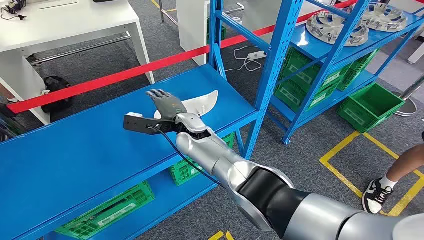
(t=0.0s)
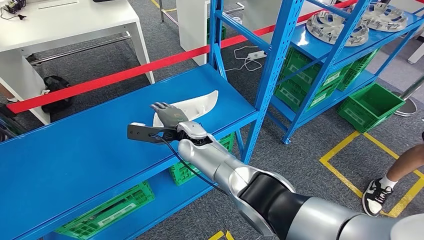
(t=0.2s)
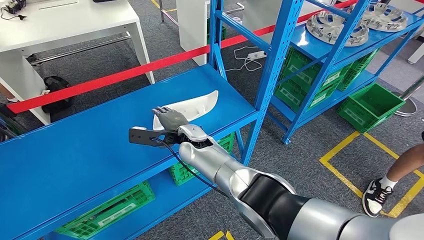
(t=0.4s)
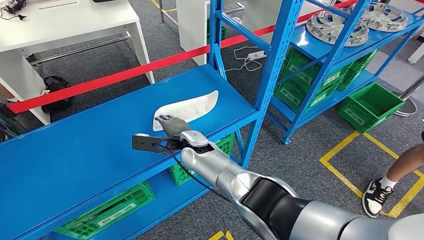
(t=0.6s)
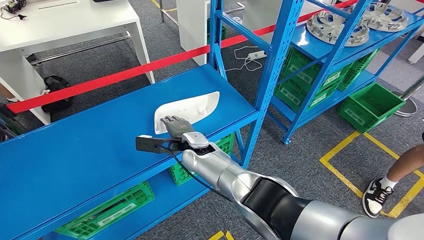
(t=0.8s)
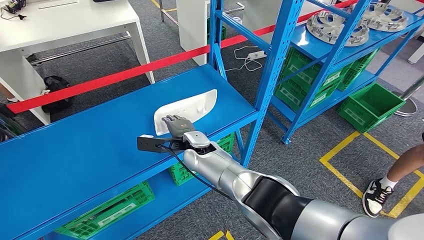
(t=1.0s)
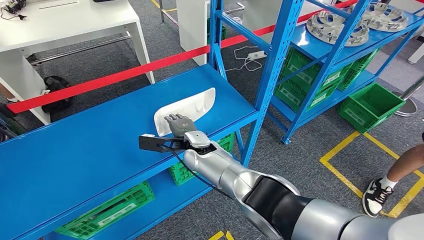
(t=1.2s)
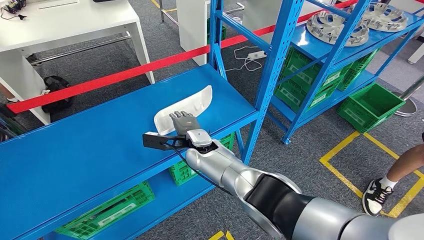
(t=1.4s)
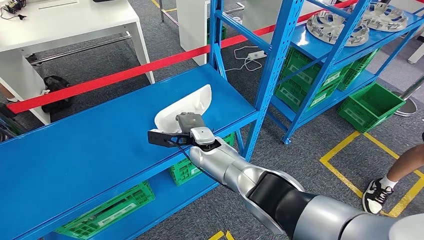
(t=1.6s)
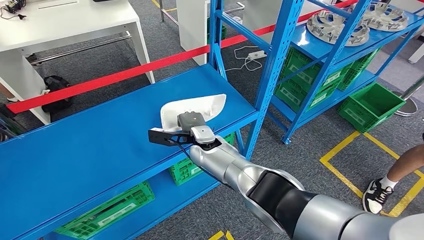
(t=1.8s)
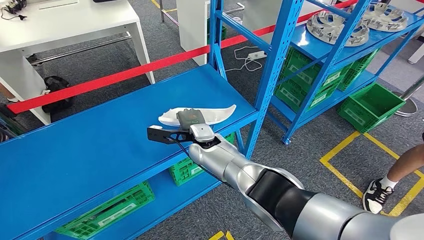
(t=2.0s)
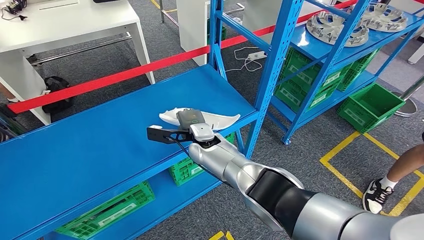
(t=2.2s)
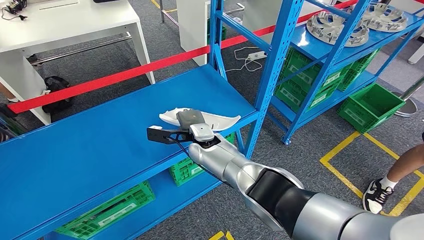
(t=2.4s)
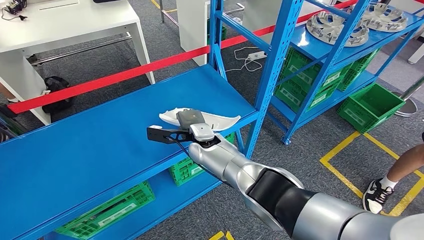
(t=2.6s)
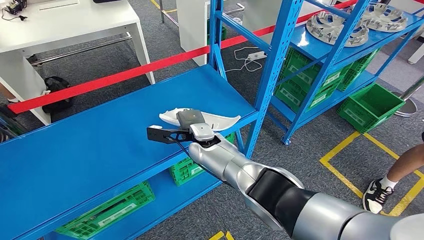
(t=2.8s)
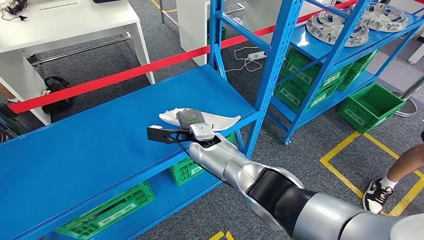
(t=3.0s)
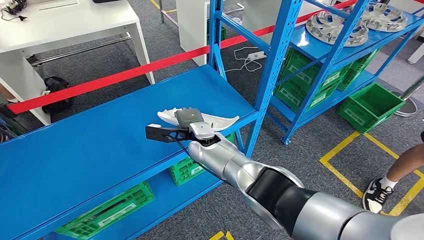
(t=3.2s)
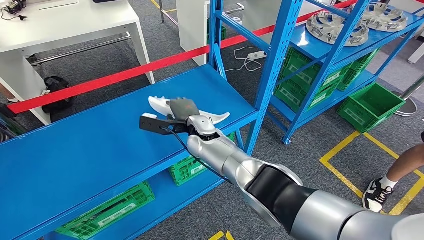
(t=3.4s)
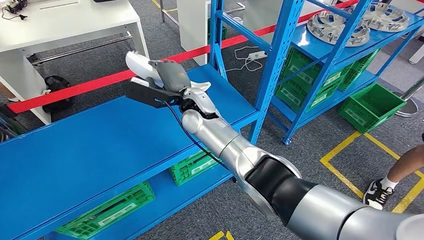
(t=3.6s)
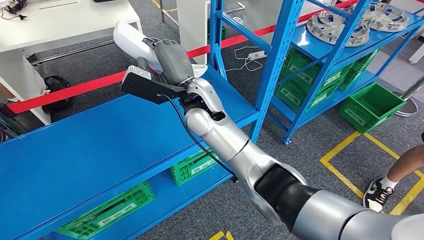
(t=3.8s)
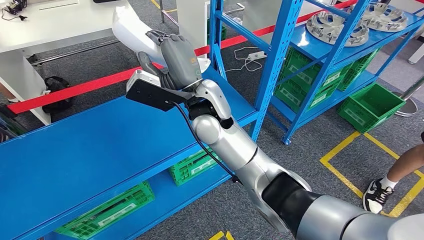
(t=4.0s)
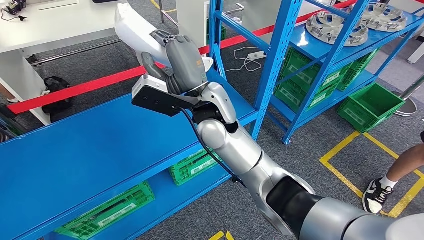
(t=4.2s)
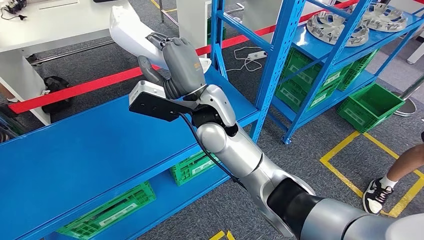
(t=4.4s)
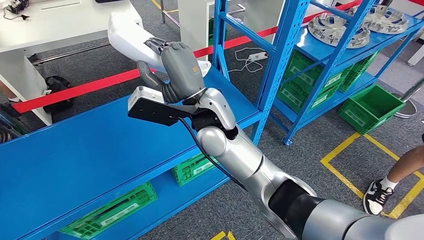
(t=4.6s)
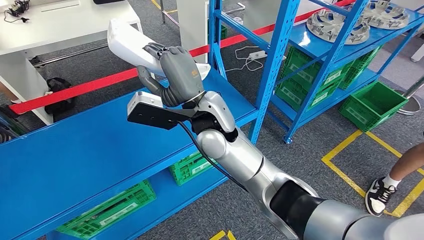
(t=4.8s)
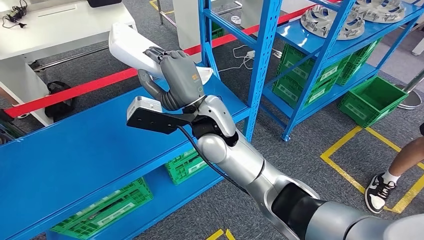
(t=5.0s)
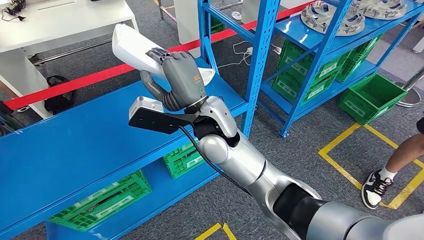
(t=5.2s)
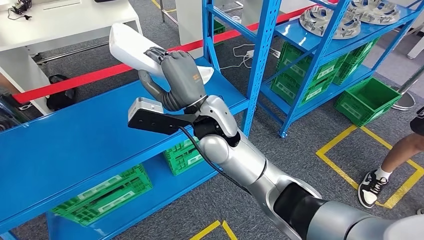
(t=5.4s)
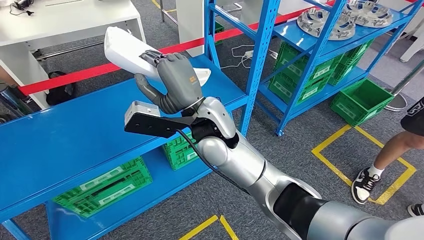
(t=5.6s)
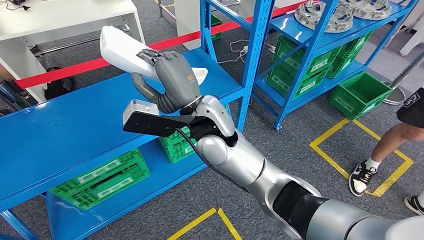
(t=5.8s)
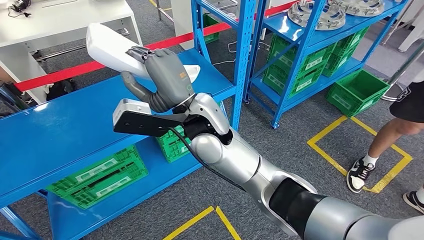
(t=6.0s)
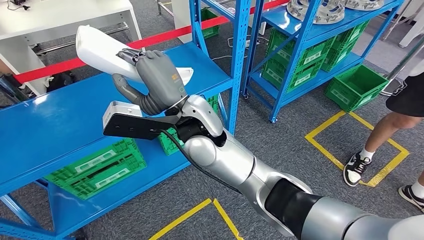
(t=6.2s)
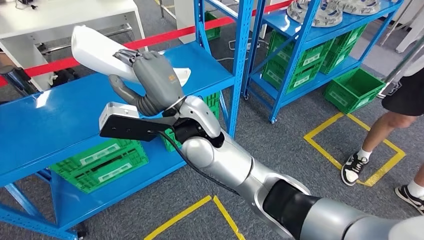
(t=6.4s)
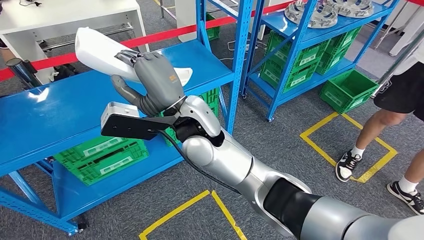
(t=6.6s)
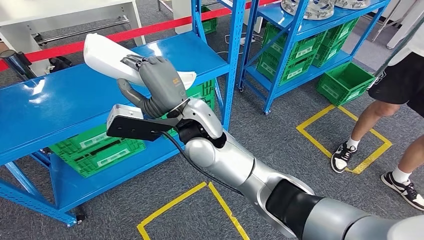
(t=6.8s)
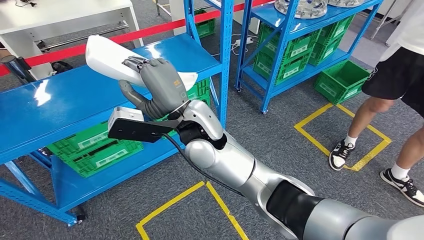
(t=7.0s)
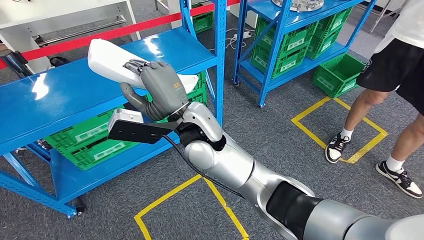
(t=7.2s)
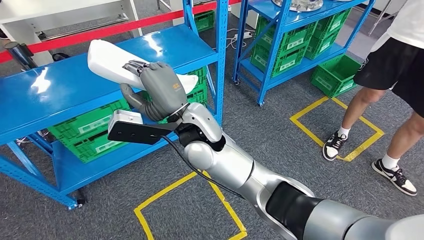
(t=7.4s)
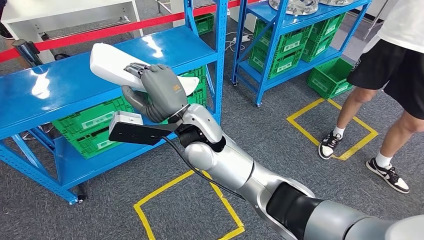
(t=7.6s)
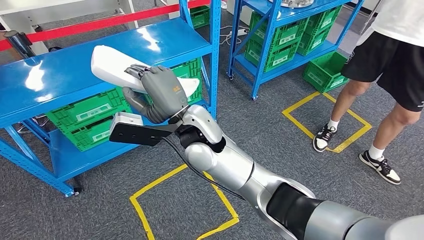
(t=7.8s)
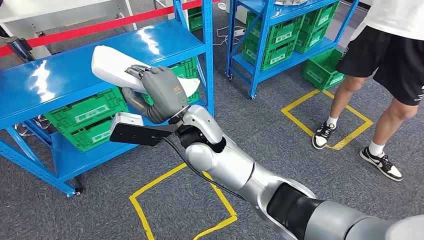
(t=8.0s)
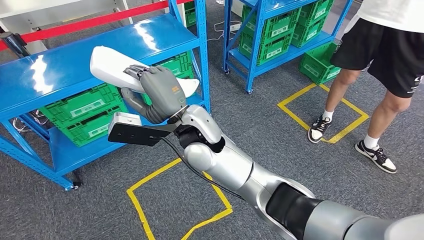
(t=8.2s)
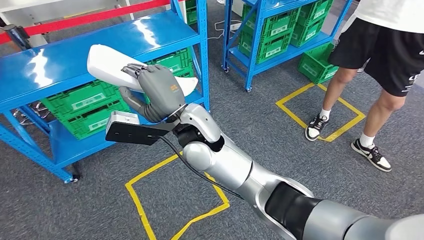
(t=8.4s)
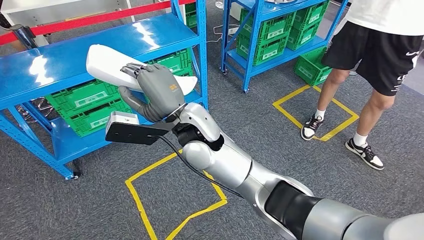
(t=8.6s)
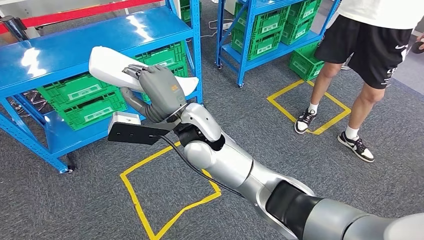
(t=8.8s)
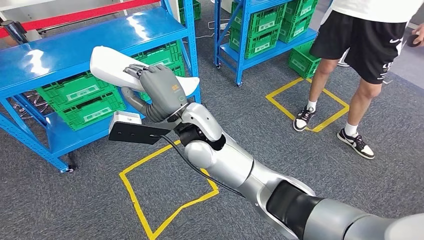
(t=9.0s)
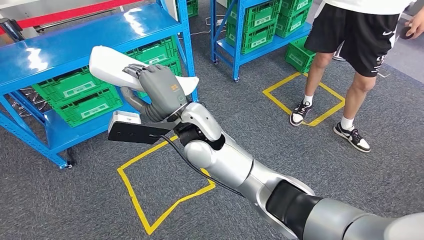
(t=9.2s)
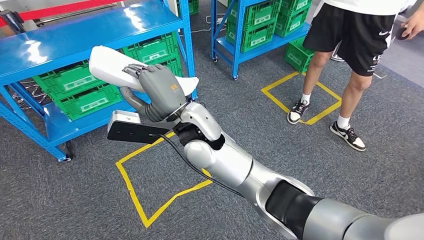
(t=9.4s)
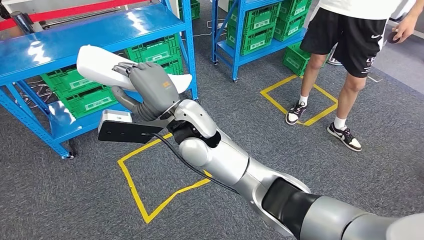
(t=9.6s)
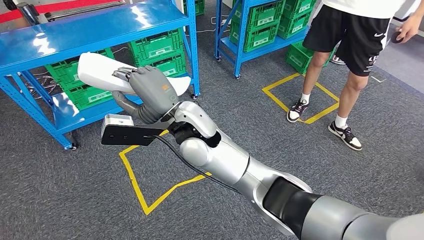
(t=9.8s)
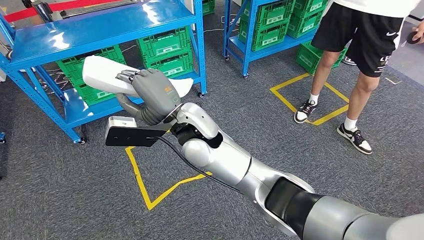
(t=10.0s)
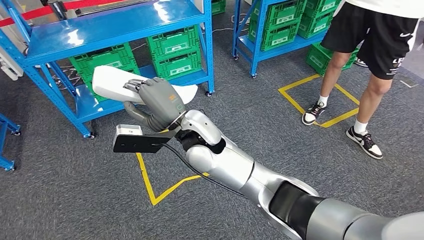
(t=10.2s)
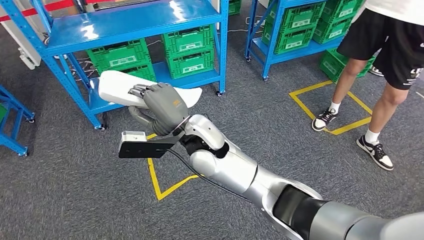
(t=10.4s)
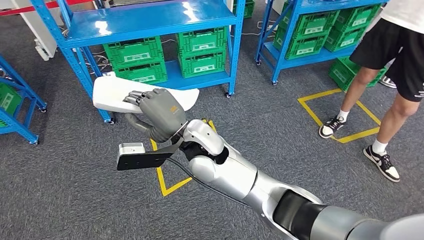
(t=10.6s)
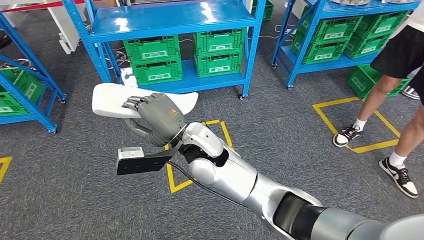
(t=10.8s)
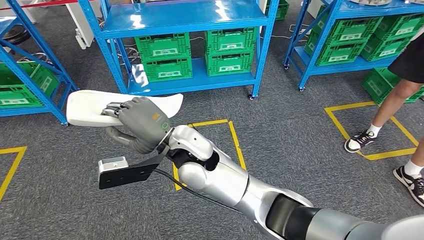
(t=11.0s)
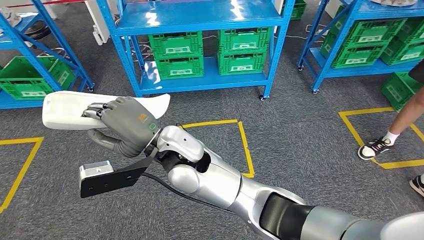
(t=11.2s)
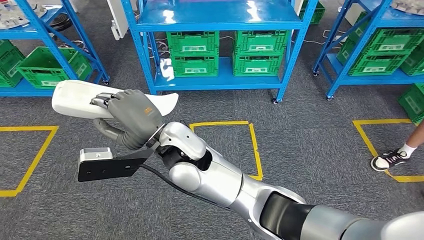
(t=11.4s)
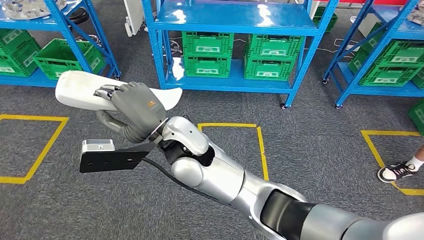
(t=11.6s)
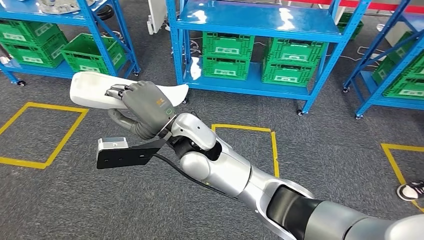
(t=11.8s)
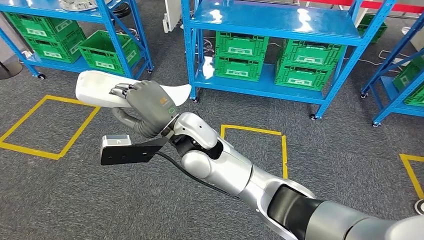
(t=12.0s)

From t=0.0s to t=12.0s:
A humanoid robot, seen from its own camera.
Step, from t=0.0s to t=4.0s: Pick up the small component from the shelf.
From t=1.6s to t=3.0s: The hands move only a little.
From t=3.0s to t=4.4s: The right hand goes approximately 20 cm upward.

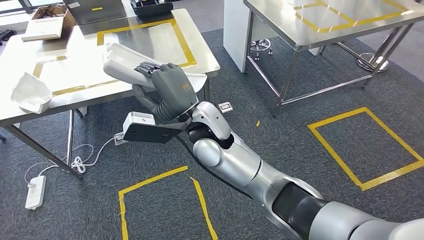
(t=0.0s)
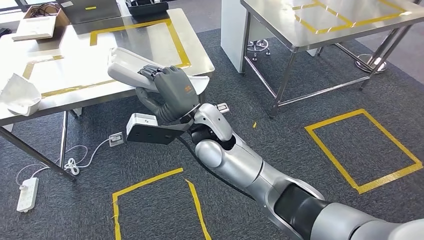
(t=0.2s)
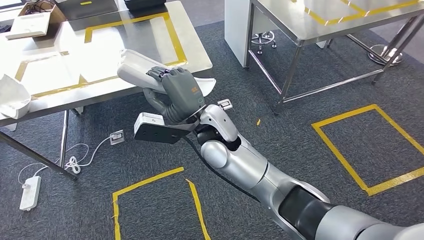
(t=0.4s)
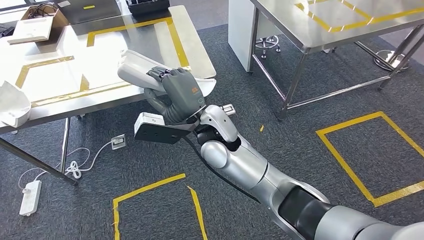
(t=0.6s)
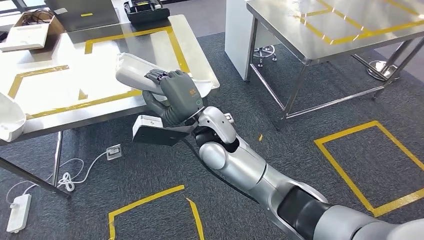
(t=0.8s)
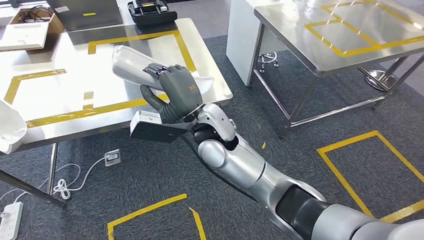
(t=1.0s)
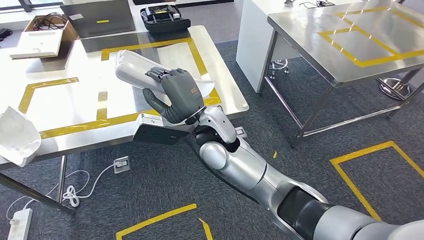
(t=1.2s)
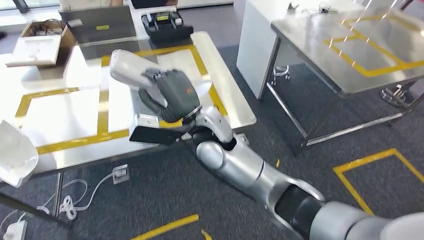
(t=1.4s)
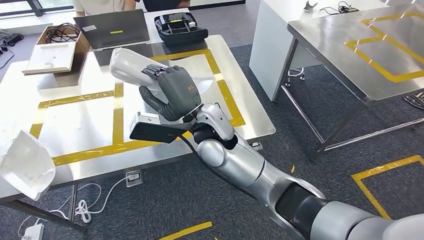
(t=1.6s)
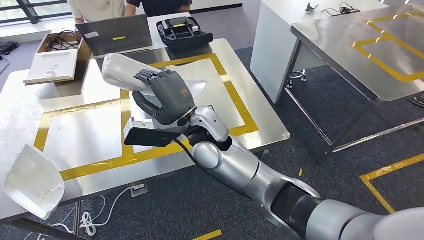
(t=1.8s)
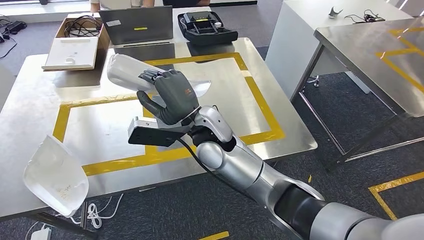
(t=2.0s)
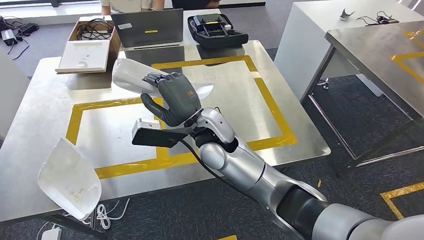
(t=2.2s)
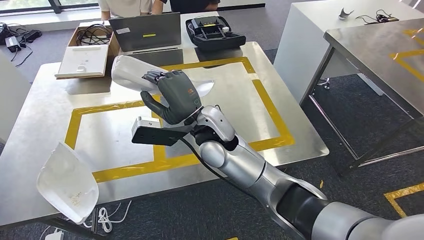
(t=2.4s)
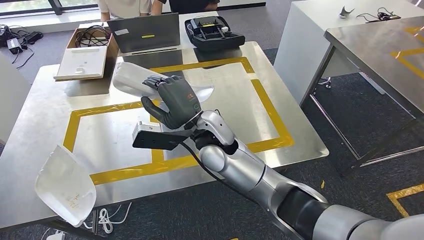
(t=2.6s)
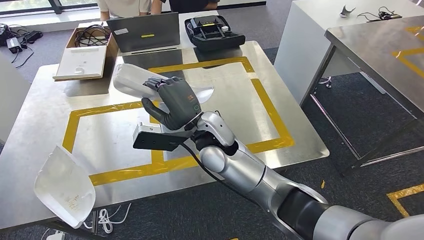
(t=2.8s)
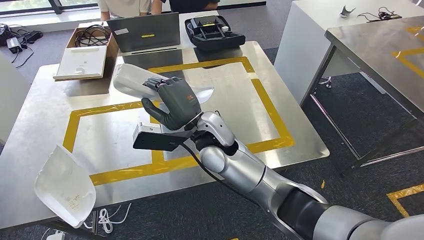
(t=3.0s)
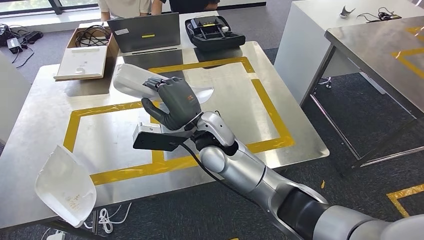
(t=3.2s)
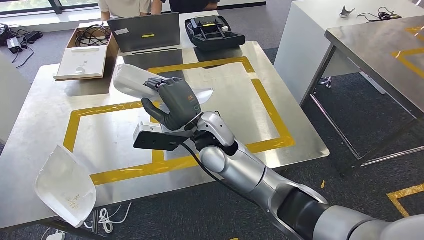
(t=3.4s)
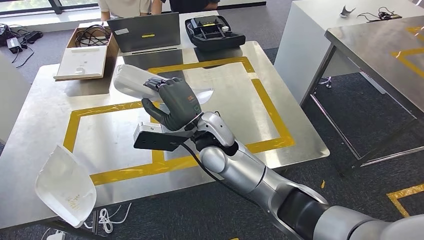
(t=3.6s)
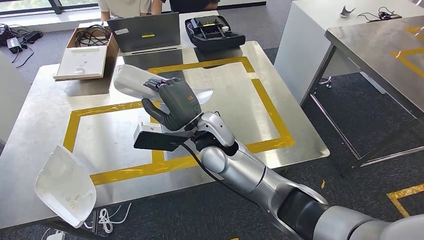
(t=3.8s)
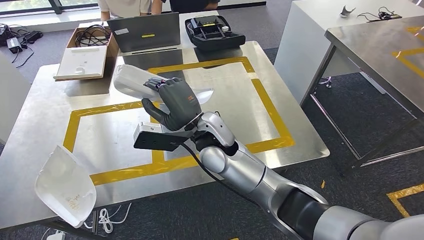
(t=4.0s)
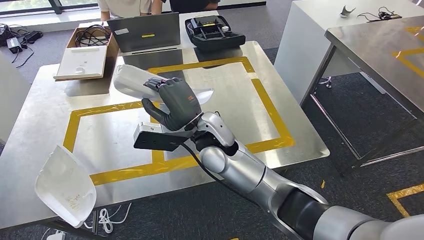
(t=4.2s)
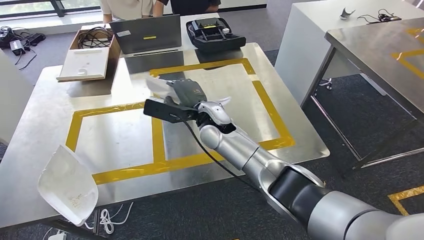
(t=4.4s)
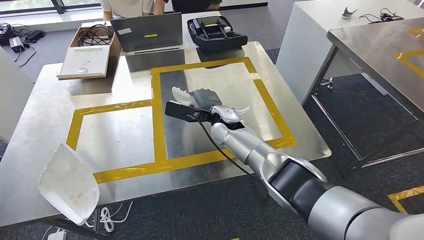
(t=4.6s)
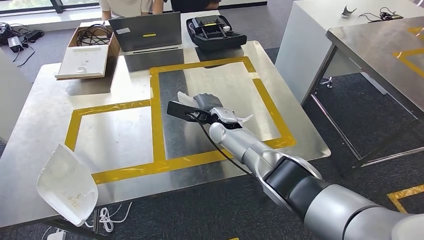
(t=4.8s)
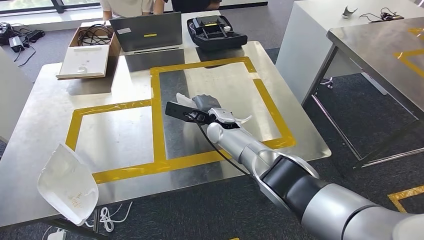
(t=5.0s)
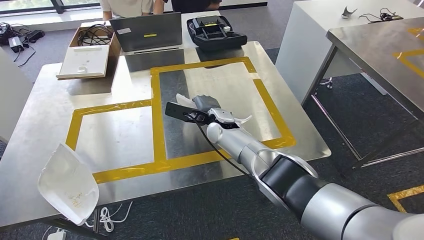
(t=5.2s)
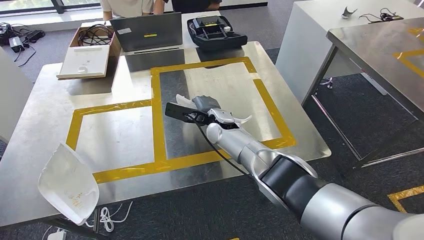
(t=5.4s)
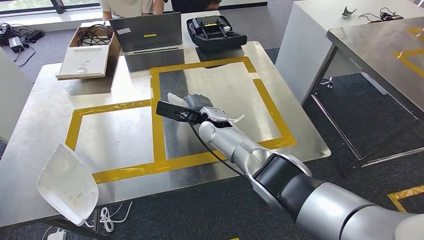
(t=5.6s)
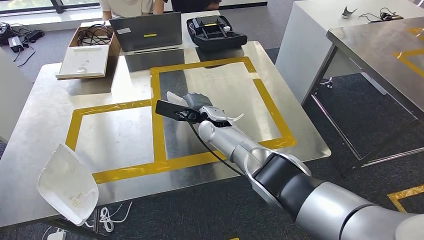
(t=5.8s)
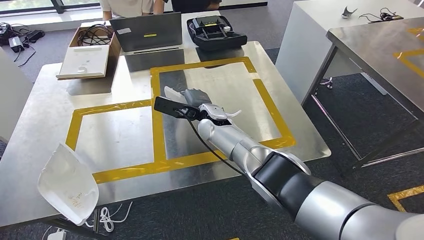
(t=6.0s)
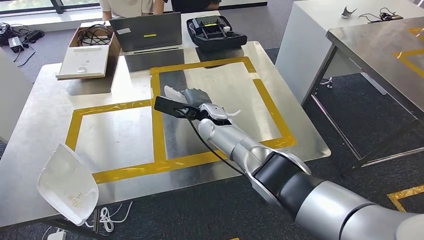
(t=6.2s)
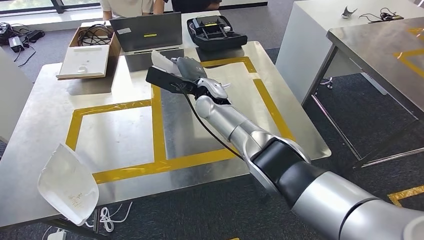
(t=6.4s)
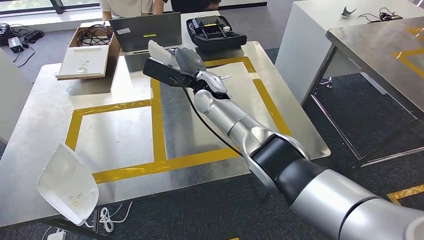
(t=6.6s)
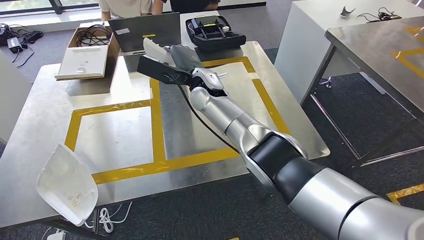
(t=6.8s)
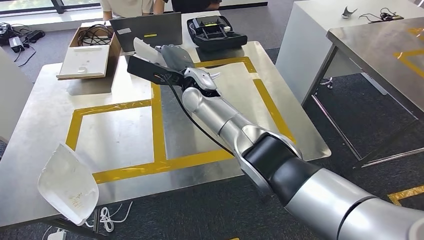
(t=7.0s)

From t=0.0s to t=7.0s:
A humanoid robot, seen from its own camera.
From t=2.8s to t=4.2s: Both hands stay about where they are.
From t=5.6s to t=7.0s: The right hand moves upward and forward, roughly 15 cm.
